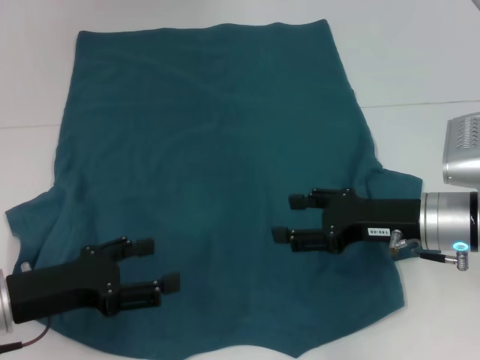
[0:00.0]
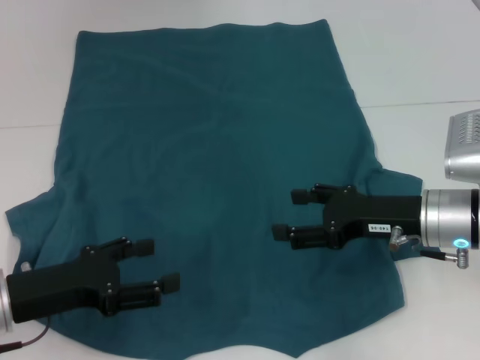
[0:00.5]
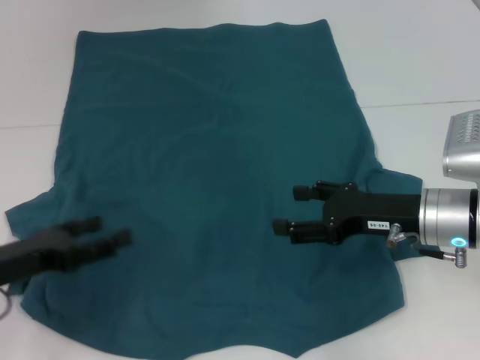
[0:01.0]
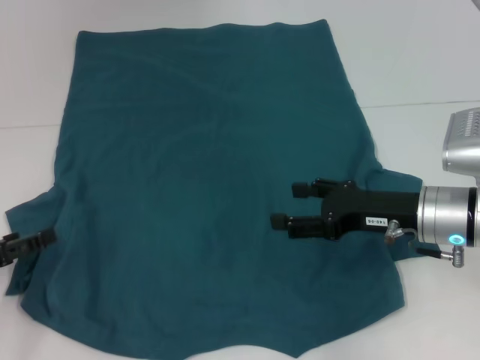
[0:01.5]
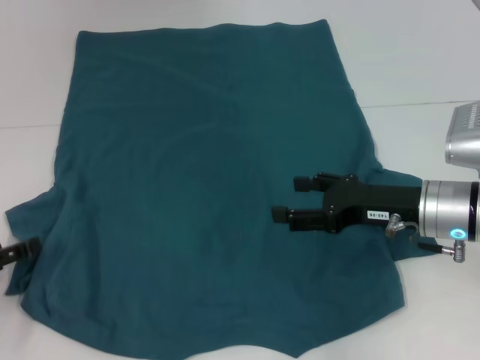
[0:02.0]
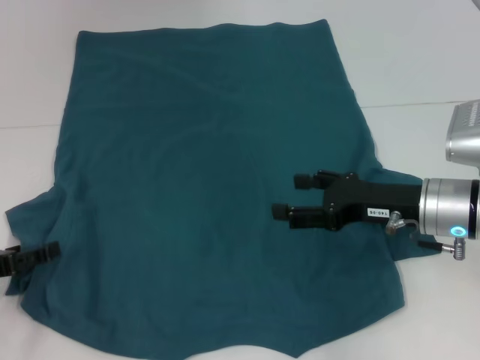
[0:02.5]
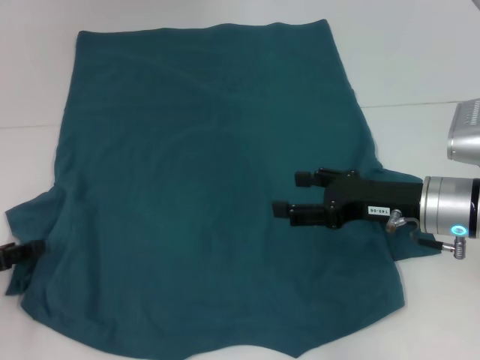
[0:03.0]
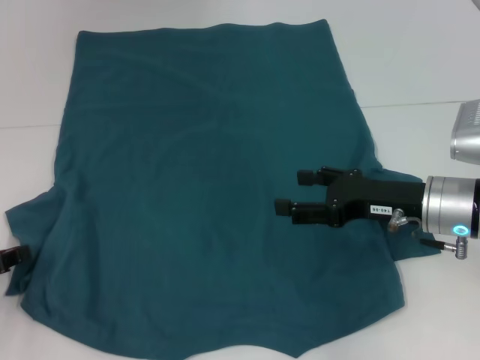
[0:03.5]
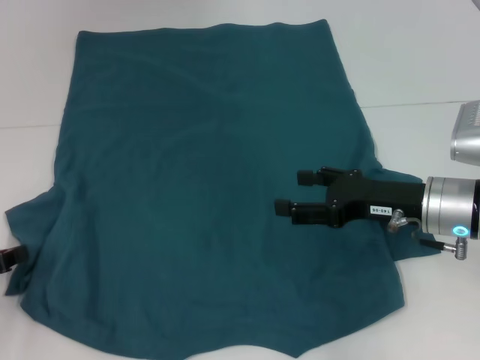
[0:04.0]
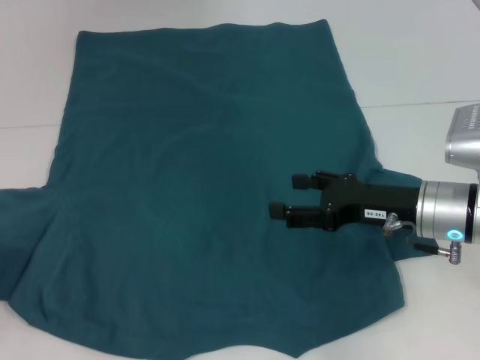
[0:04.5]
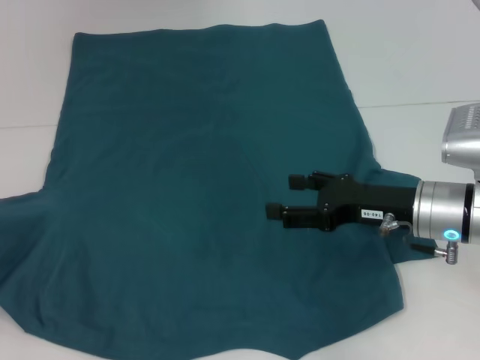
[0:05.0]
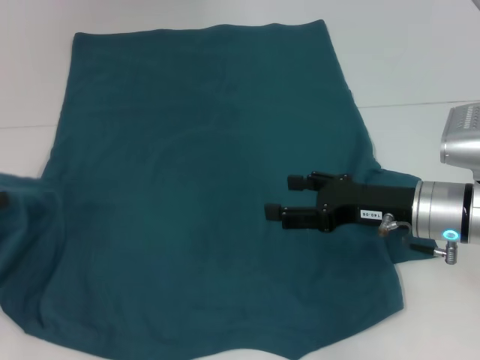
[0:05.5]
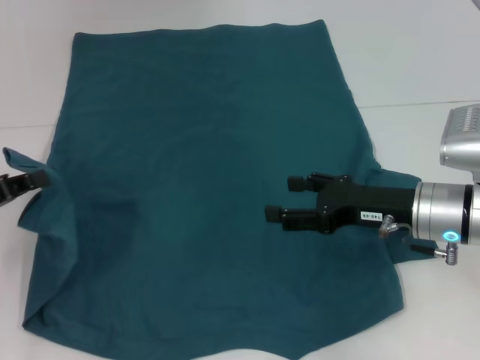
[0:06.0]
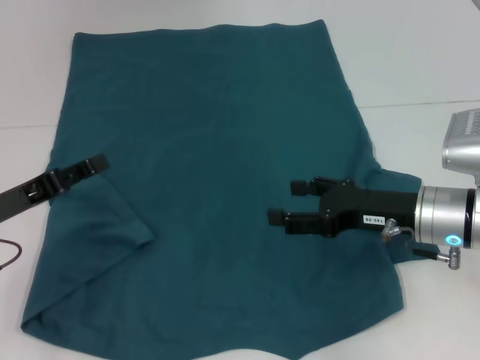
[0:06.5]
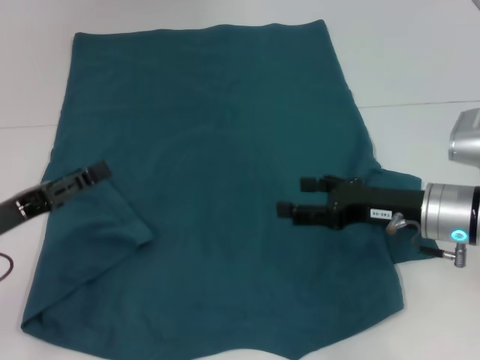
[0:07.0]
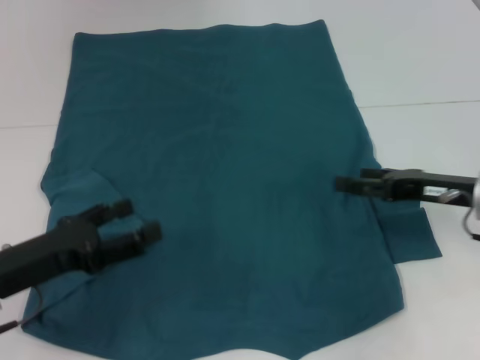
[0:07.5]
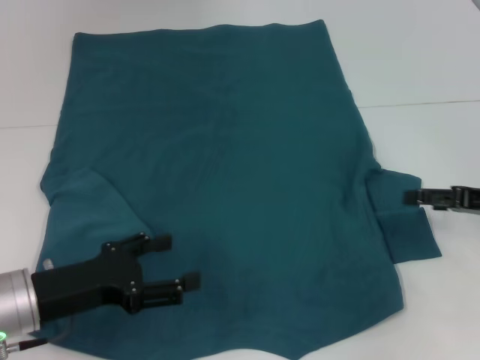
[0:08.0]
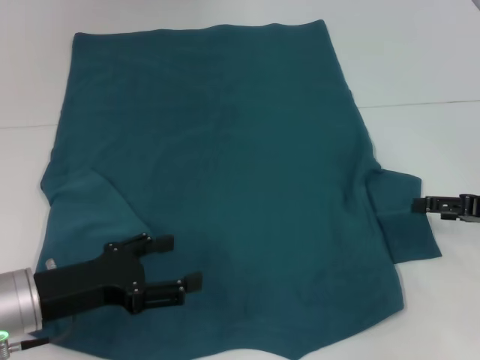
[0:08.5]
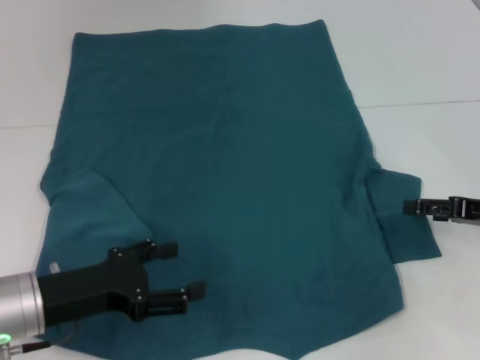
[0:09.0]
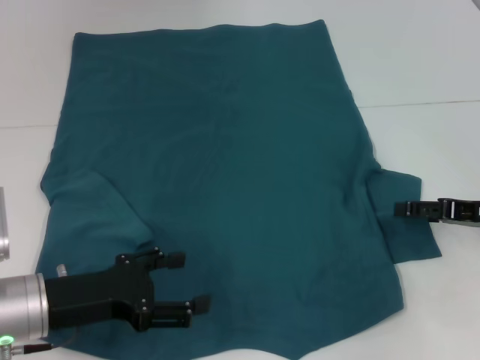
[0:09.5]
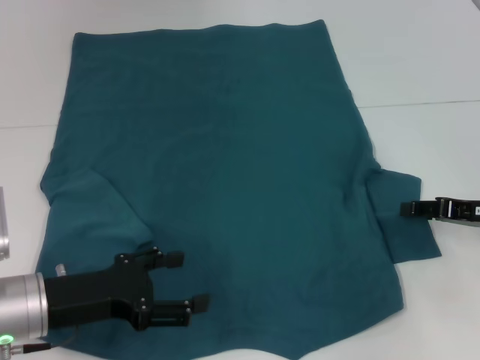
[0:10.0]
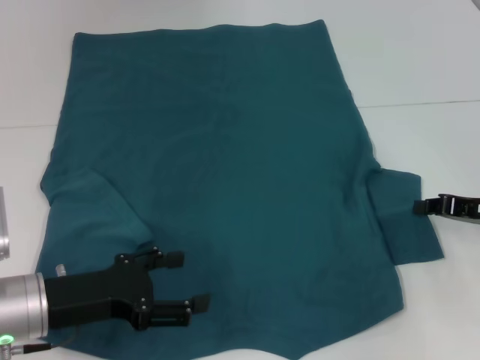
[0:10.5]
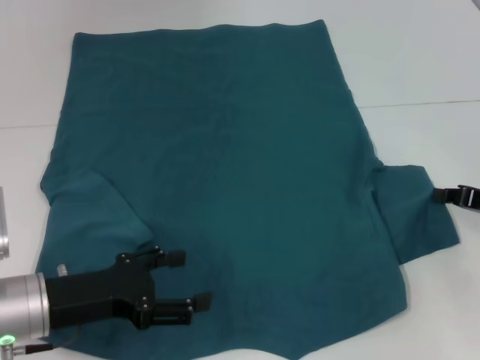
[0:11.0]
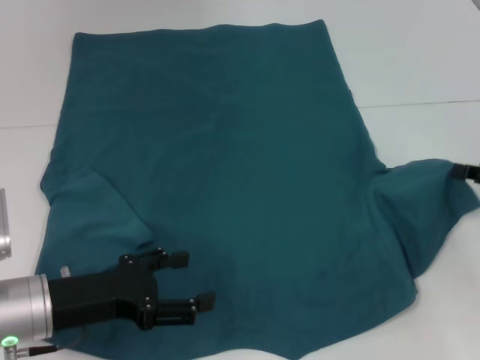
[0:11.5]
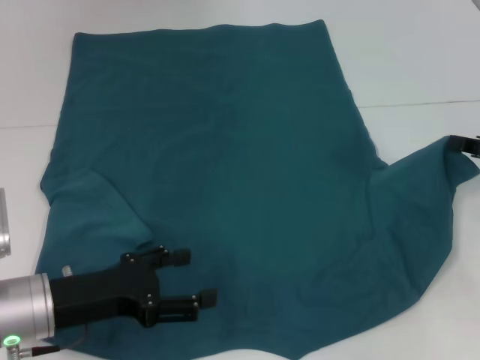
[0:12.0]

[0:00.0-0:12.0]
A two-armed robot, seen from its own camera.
Step, 0.0 to 6.5 s: Fold the bottom left sleeve with your left hand.
0.0 to 2.0 s: The left gripper goes about 10 cm to the left.
2.0 to 4.0 s: The left gripper closes its fingers.
4.0 to 6.0 s: The left gripper shifts by some 5 cm.
6.0 to 8.0 s: Both grippers move to the right, about 10 cm. The left gripper opens up.
8.0 to 10.0 s: The grippers move only a little.
10.0 to 12.0 s: The right gripper closes its fingers.

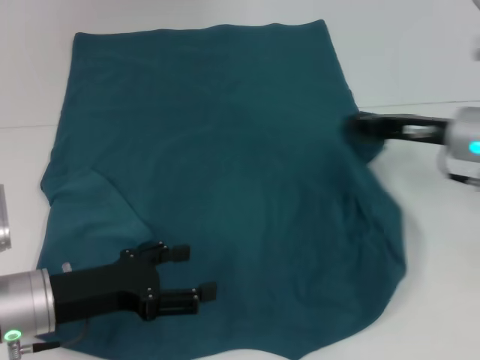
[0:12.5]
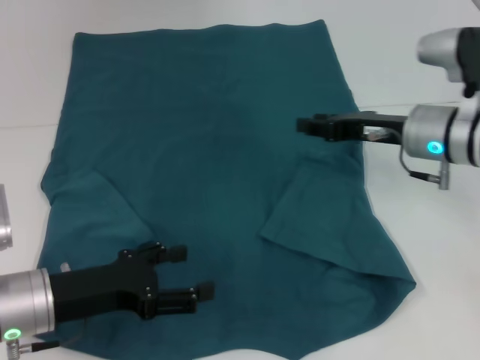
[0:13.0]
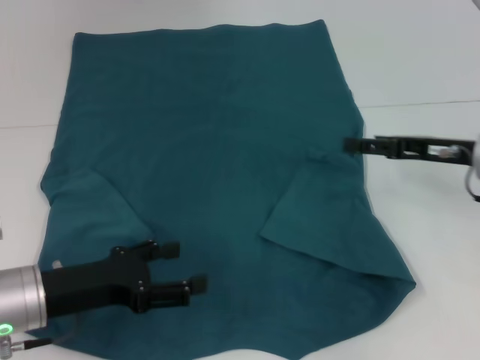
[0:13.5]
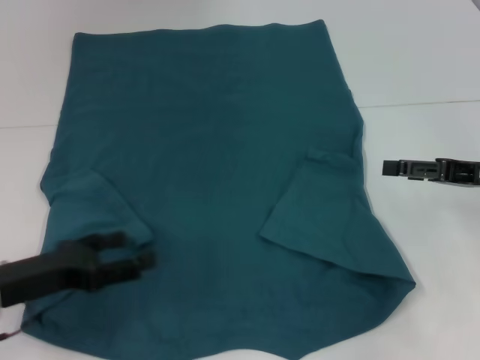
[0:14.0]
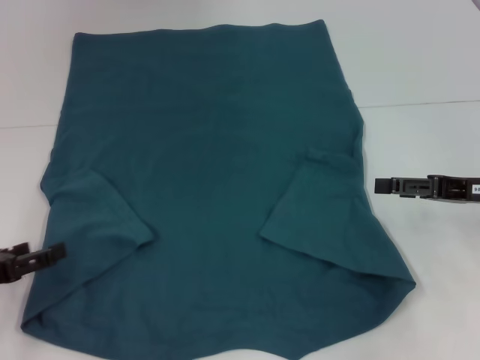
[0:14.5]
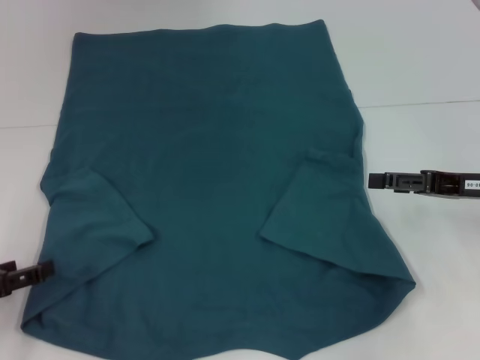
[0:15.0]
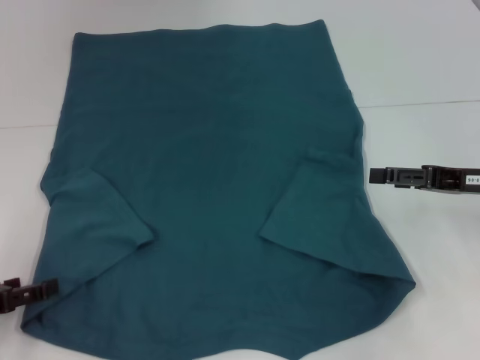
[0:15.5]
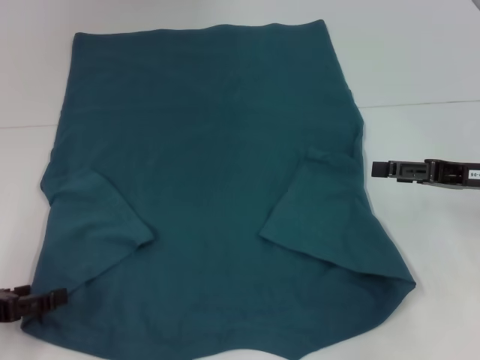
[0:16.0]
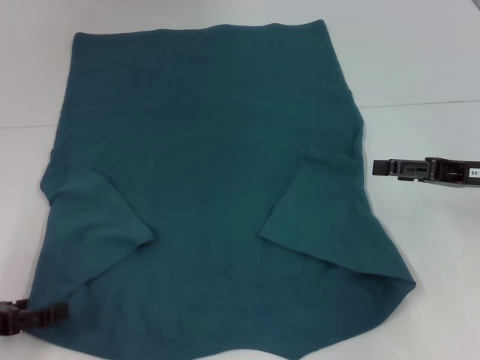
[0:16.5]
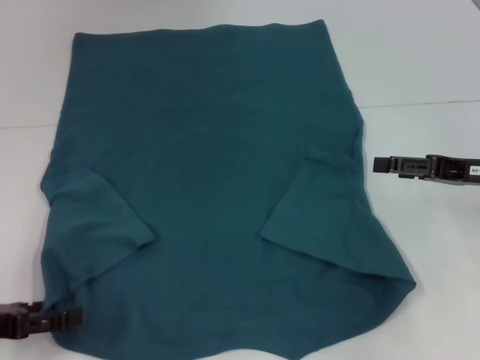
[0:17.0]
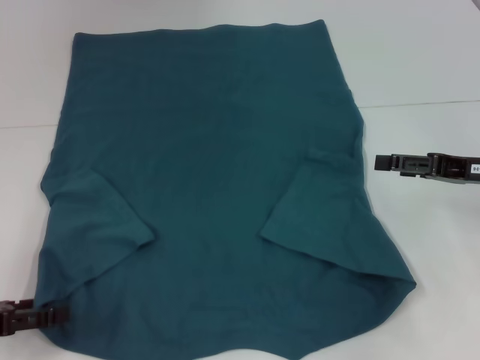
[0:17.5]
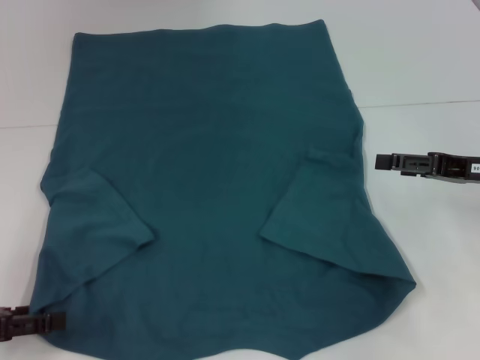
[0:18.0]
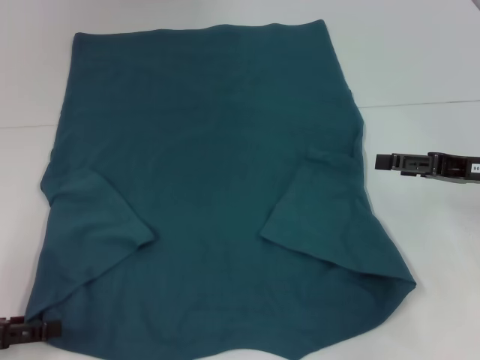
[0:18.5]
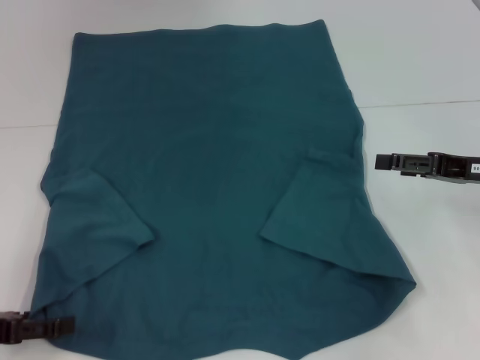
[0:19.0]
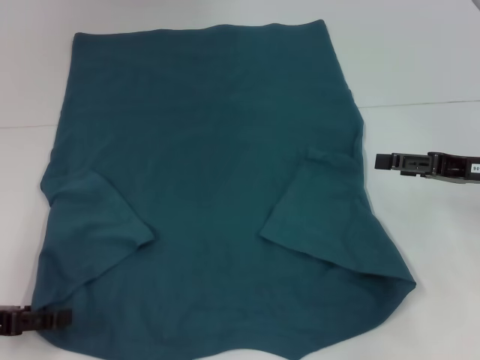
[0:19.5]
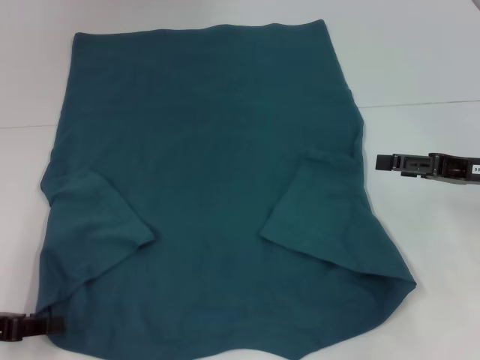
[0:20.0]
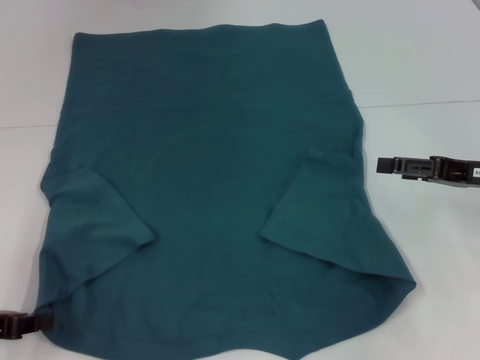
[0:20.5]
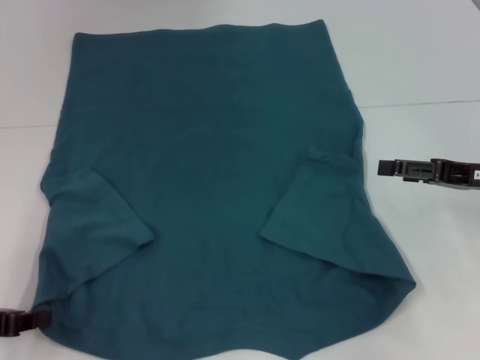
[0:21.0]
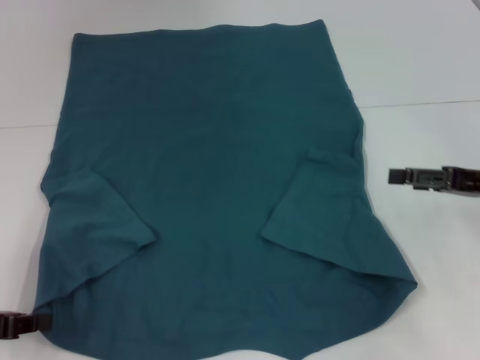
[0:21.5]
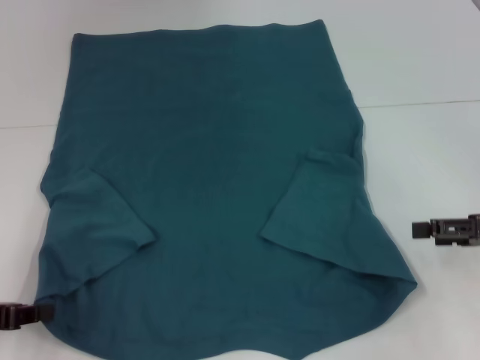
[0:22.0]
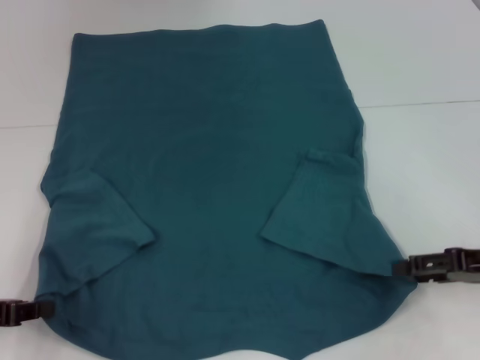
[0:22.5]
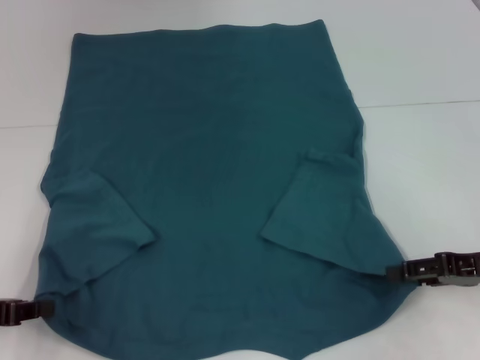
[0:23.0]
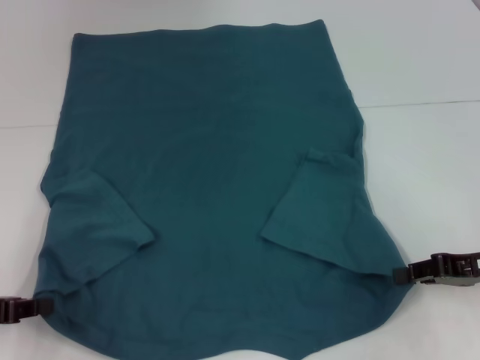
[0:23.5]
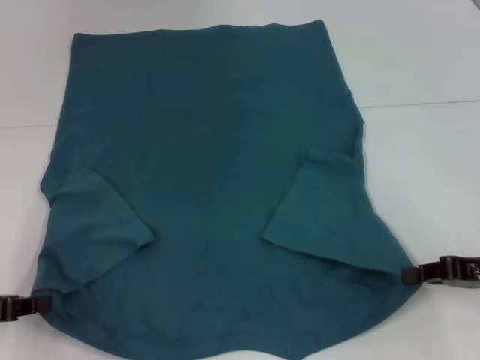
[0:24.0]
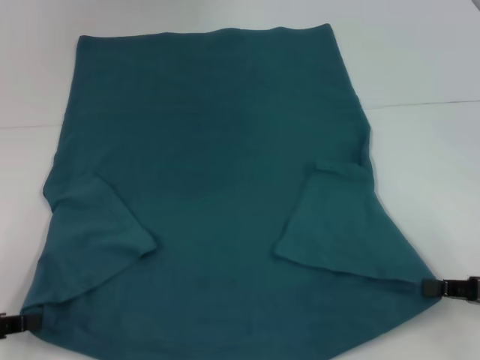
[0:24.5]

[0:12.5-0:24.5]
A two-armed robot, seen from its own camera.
Step, 13.0 to 20.5 s: Grab the bottom left corner with your left hand.
Step, 21.0 to 23.5 s: Grab the bottom right corner with your right hand.
12.5 to 14.5 s: The right gripper is displaced backward and to the right by some 10 cm, and opens its fingers; the left gripper shifts approximately 10 cm to the left.
14.5 to 18.5 s: There are only small adjustments of the grippers.
18.5 to 20.5 s: The left gripper closes its fingers.
20.5 to 22.5 s: The right gripper moves about 5 cm.
22.5 to 24.5 s: The right gripper shifts by roughly 5 cm, and closes.

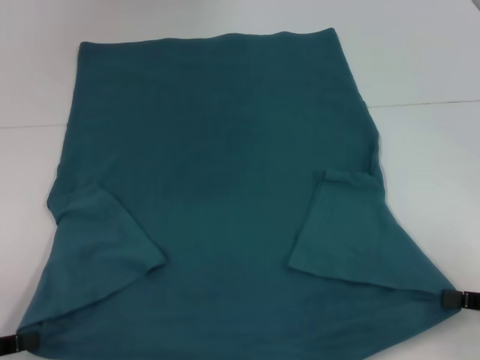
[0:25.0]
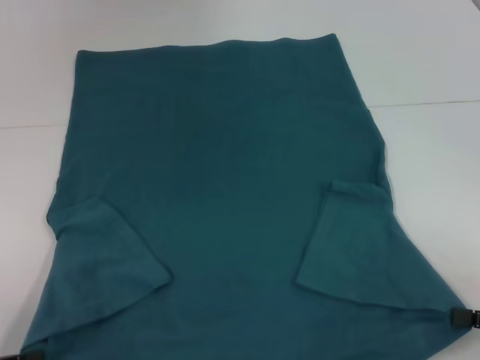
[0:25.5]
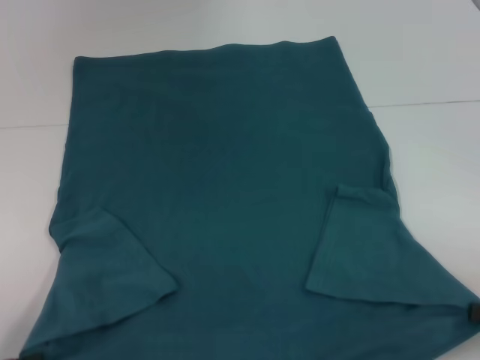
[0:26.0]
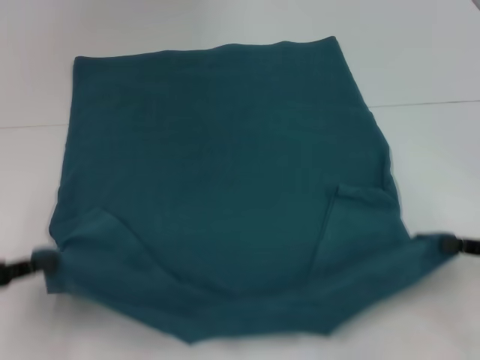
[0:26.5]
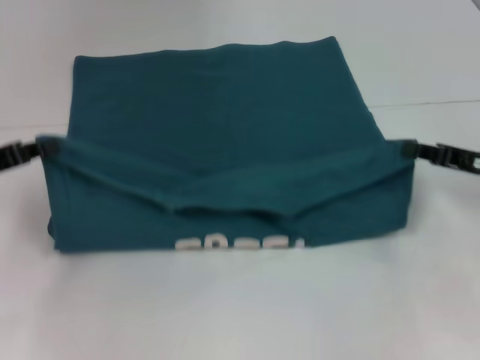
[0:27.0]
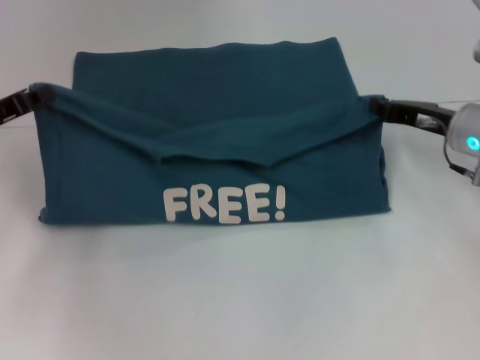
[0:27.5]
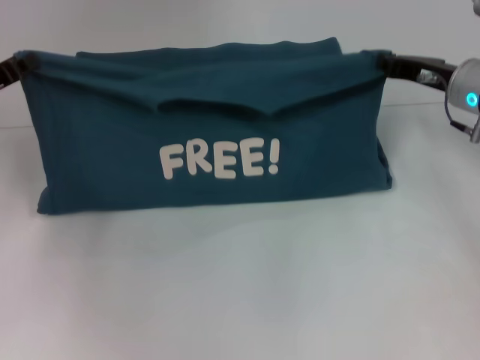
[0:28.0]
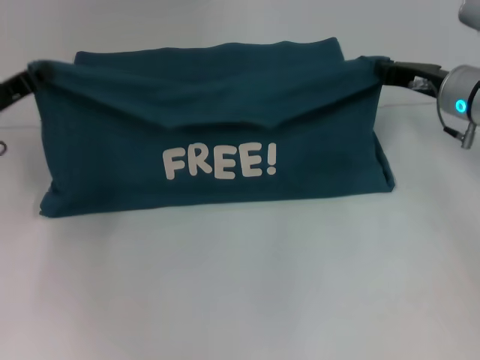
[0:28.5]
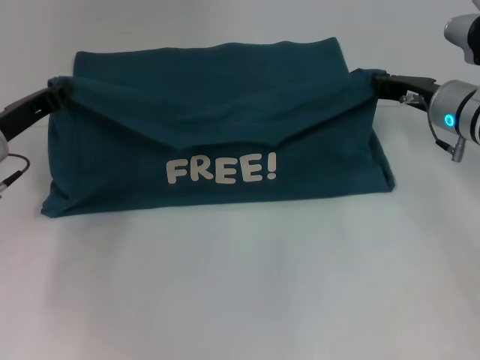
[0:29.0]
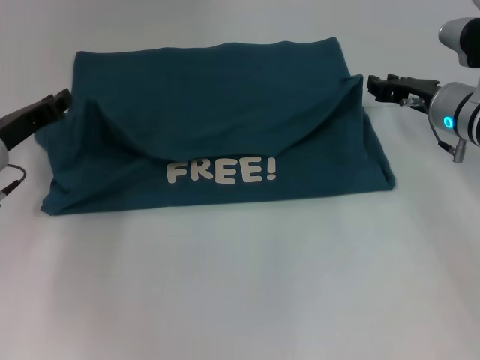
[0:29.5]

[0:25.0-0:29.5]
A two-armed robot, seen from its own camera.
25.0 to 27.0 s: The left gripper moves forward and upward, some 15 cm. The right gripper goes some 15 cm forward.
27.0 to 29.5 s: The right gripper goes roughly 10 cm forward and to the left. The left gripper shifts approximately 10 cm forward and to the right.
